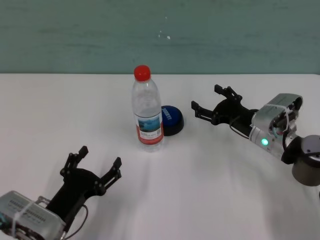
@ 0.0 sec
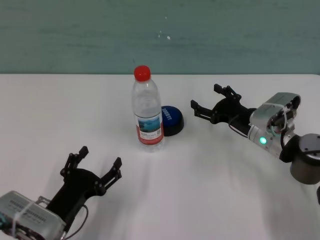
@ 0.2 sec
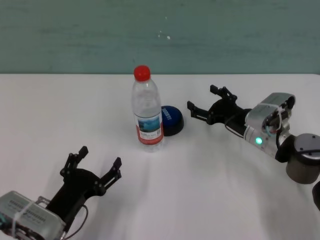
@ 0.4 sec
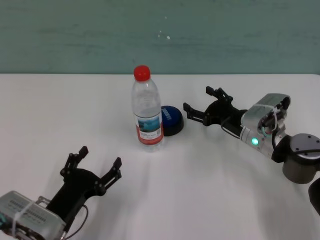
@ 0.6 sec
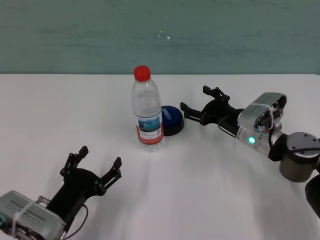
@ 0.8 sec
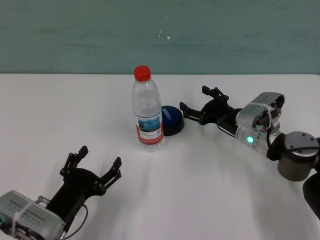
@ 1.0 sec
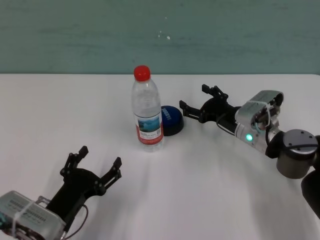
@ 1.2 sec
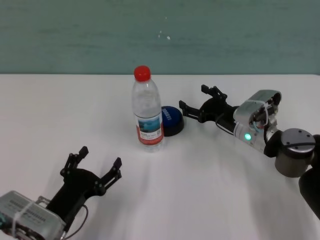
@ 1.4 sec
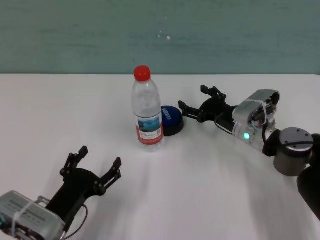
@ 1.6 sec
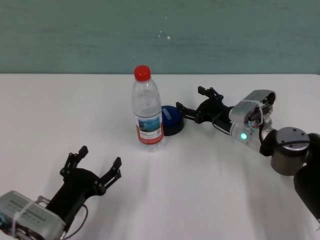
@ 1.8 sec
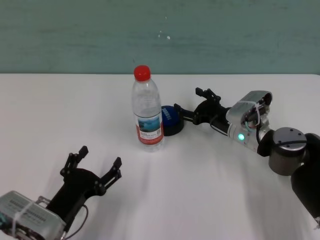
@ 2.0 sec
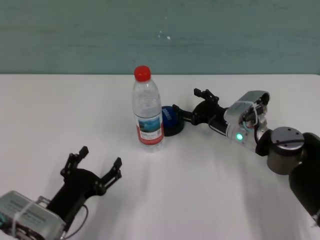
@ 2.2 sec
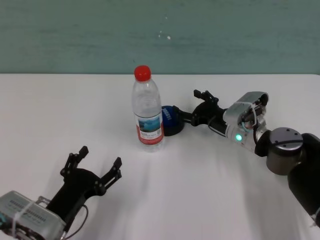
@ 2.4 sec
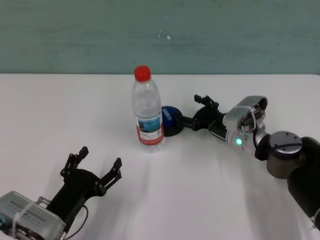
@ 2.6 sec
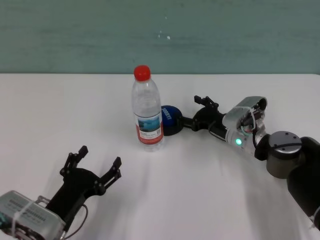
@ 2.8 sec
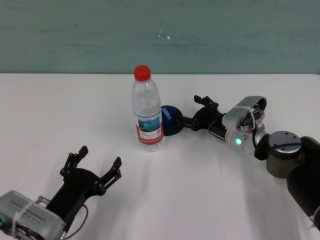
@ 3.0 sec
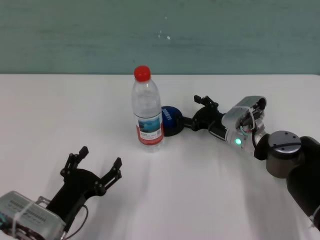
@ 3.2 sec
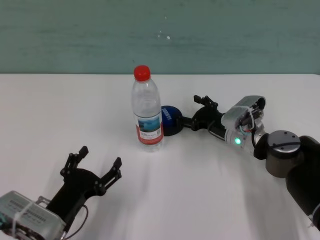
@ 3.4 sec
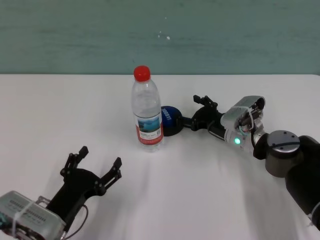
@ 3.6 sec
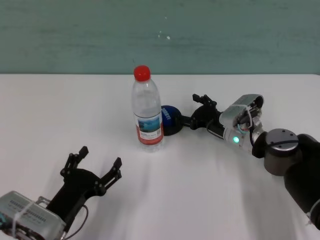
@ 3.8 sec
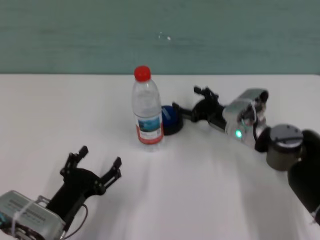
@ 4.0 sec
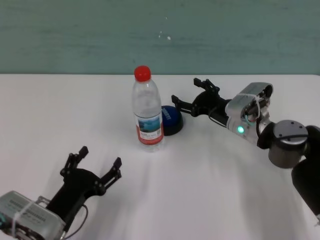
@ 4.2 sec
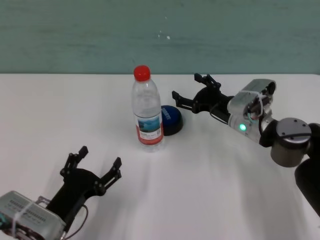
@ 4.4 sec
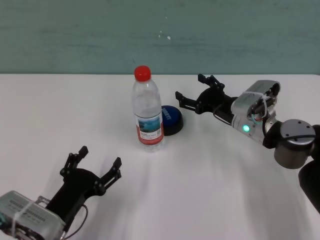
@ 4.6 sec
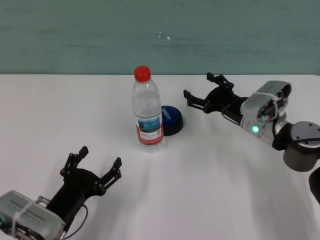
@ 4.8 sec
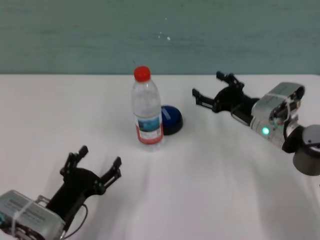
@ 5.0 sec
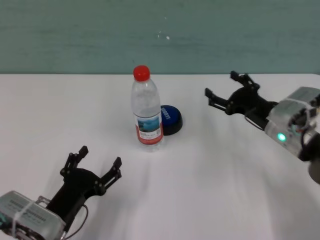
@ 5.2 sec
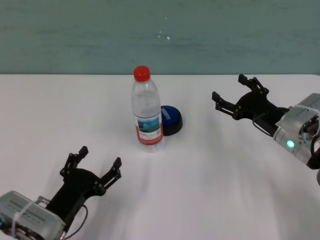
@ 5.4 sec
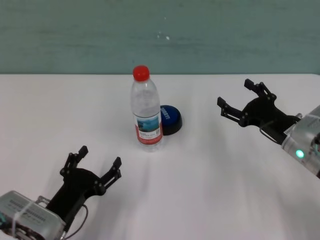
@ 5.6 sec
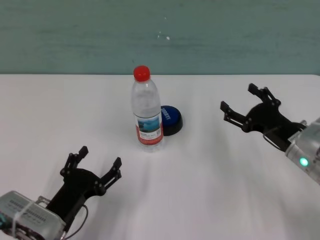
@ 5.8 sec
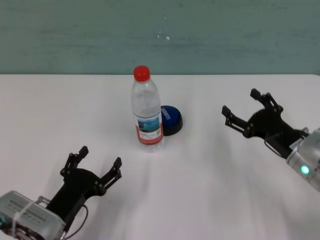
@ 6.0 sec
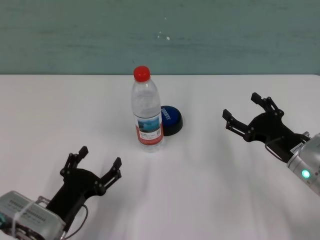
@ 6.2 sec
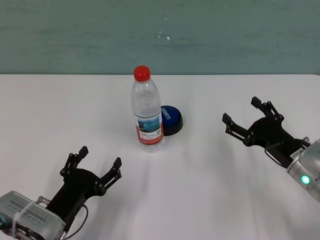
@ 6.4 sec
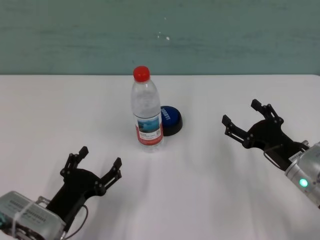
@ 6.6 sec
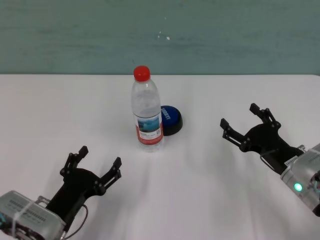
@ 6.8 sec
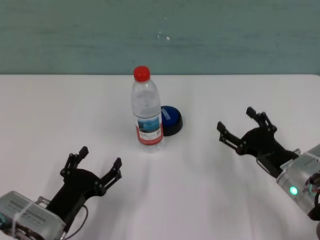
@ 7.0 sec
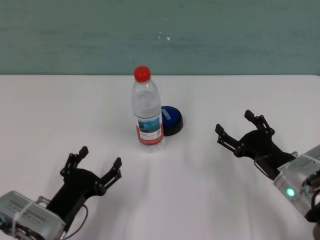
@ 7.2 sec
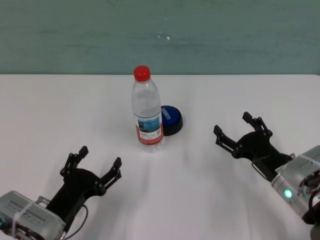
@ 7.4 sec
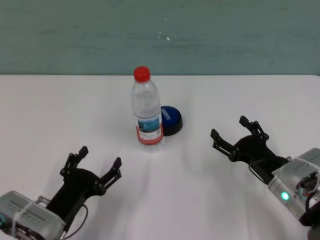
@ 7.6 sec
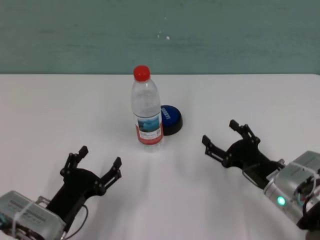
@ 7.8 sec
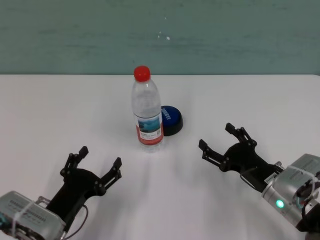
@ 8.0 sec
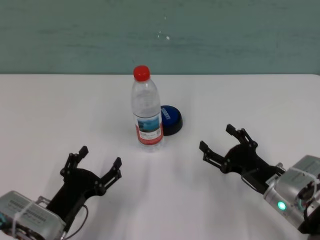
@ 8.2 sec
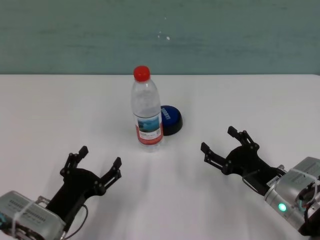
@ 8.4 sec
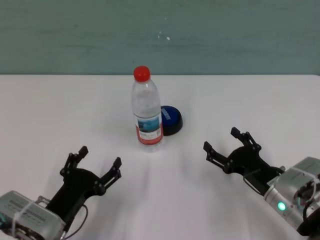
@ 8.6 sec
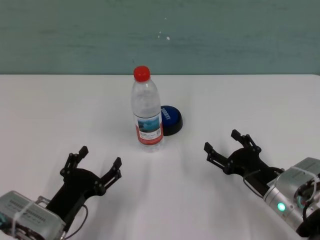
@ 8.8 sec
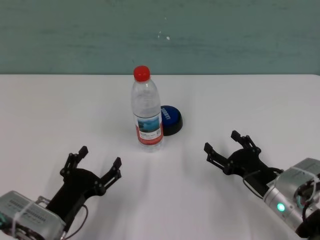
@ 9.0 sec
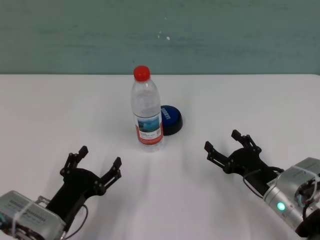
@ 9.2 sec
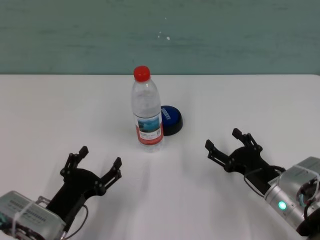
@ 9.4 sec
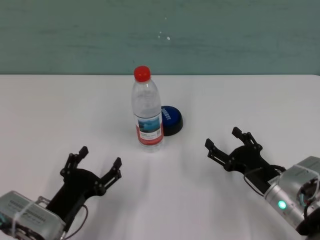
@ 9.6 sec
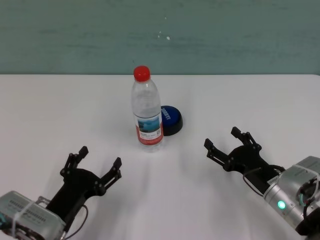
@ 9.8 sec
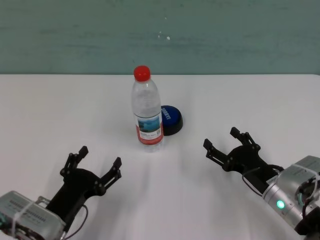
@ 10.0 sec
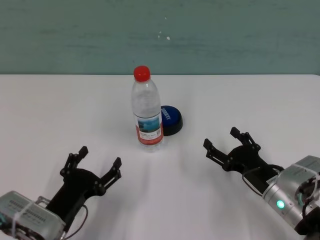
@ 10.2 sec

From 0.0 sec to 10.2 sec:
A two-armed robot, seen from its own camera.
Task of the whole recording: after avoiding the water bottle on the table, press the button.
Step, from 0.0 sec to 4.0 sec: Press the button blocked by the bottle with right gripper.
